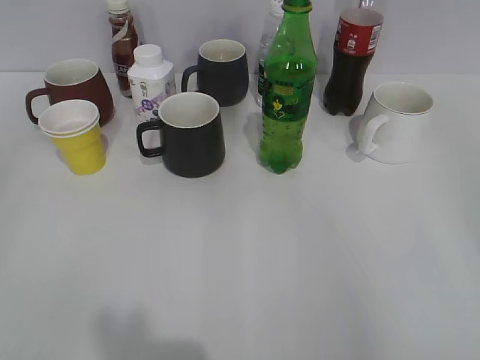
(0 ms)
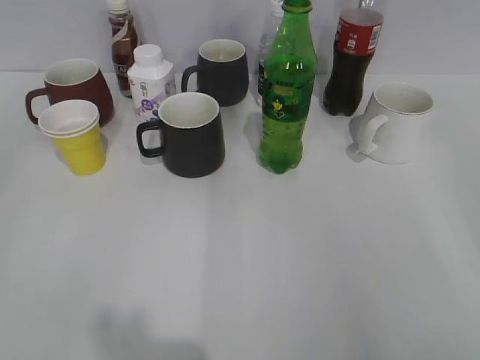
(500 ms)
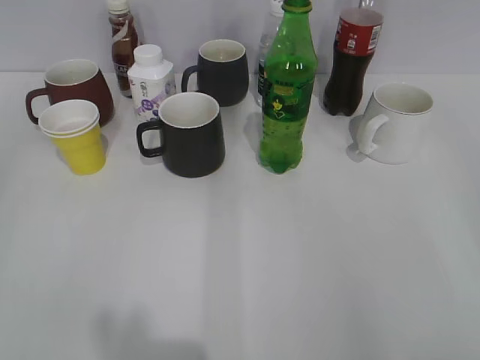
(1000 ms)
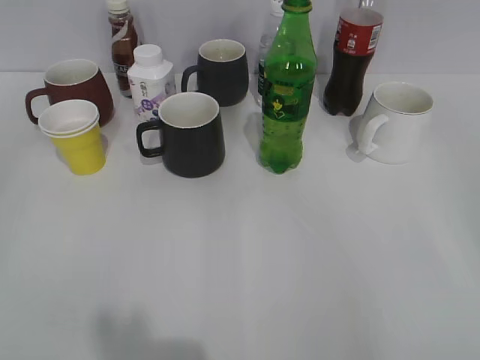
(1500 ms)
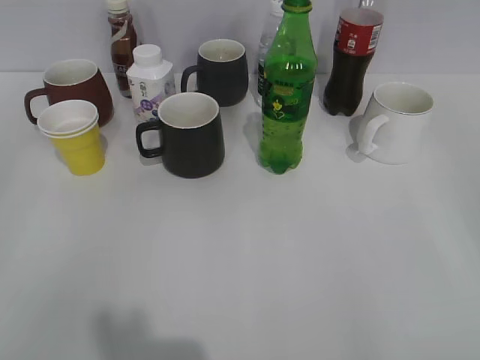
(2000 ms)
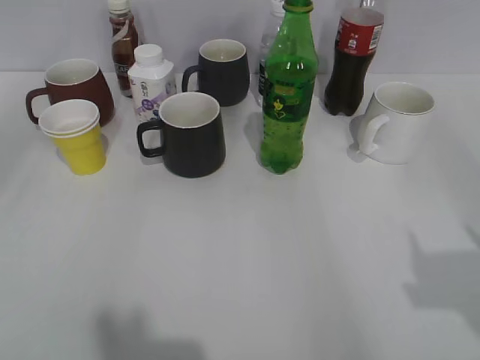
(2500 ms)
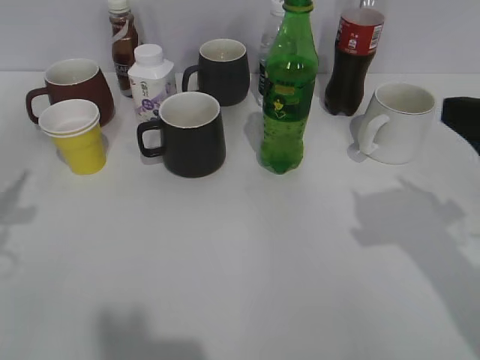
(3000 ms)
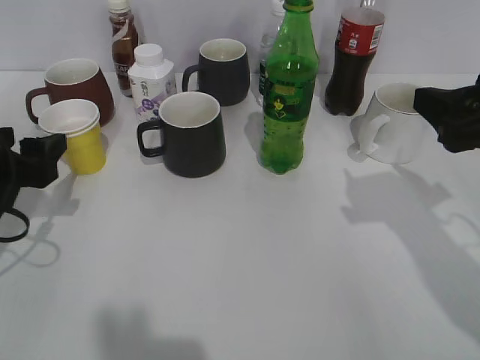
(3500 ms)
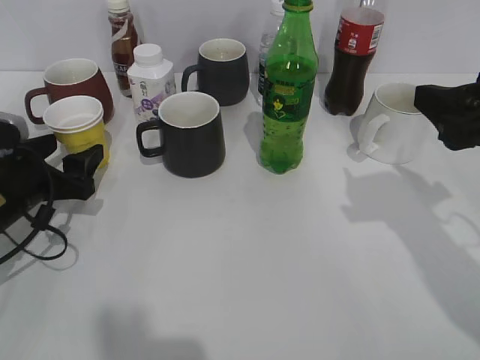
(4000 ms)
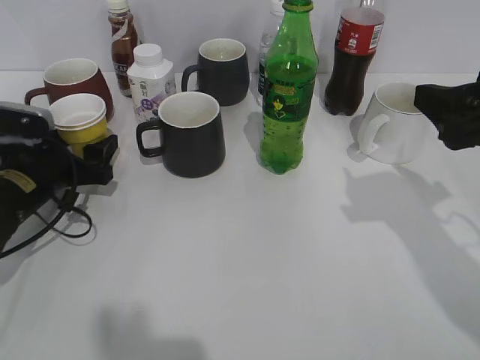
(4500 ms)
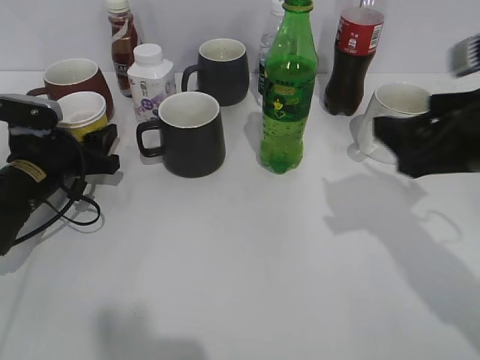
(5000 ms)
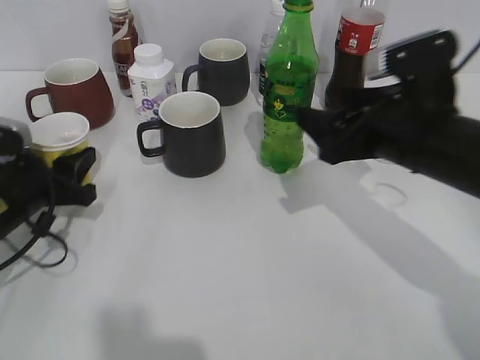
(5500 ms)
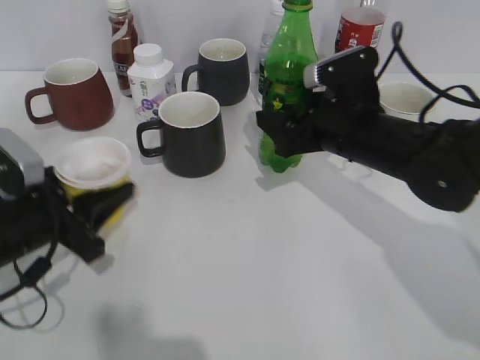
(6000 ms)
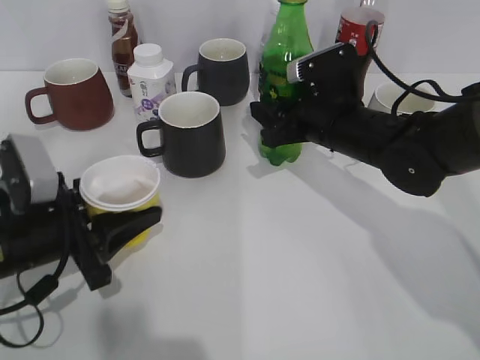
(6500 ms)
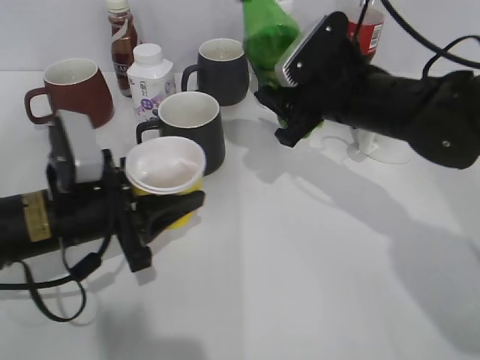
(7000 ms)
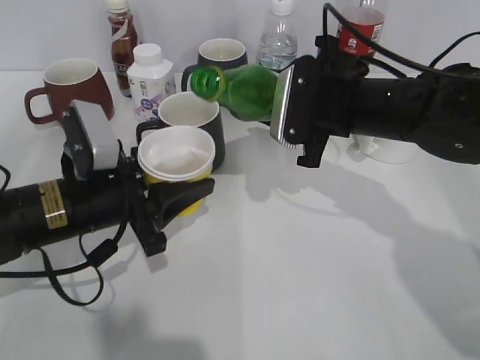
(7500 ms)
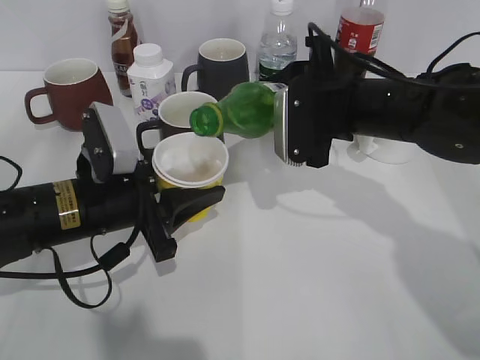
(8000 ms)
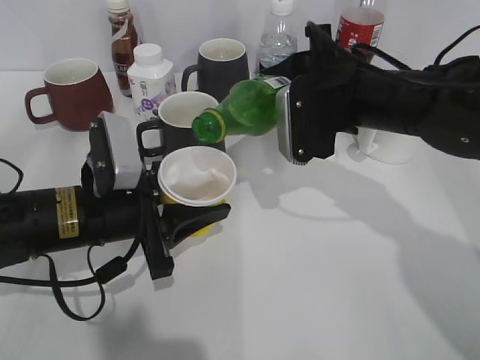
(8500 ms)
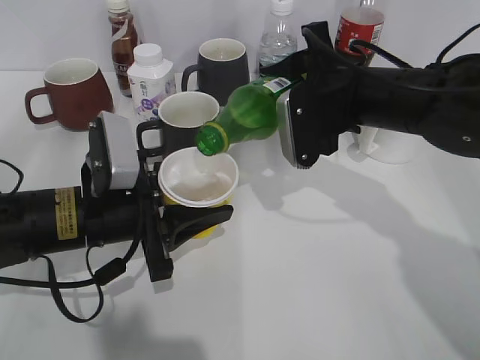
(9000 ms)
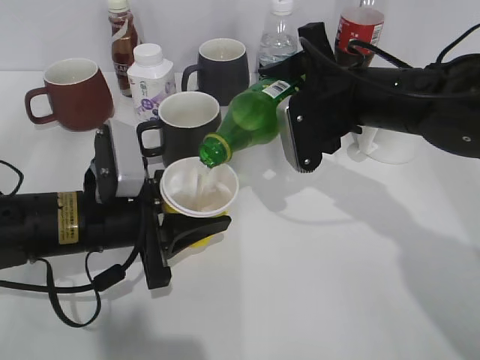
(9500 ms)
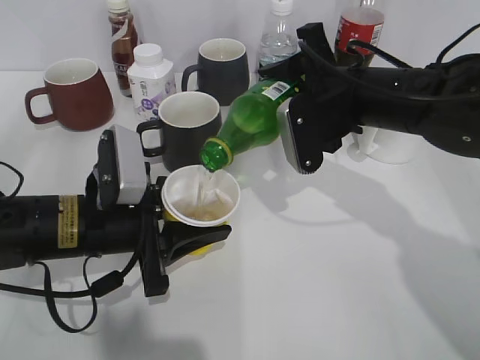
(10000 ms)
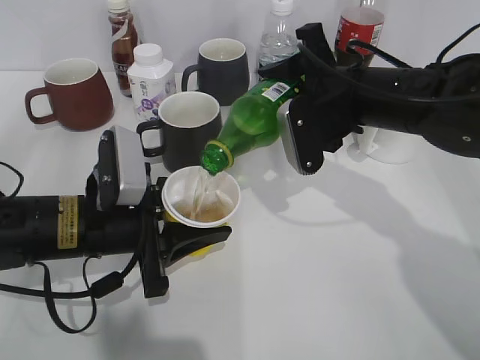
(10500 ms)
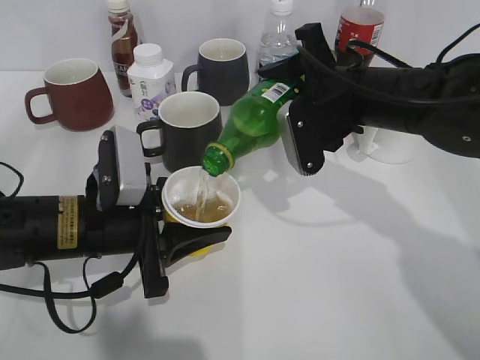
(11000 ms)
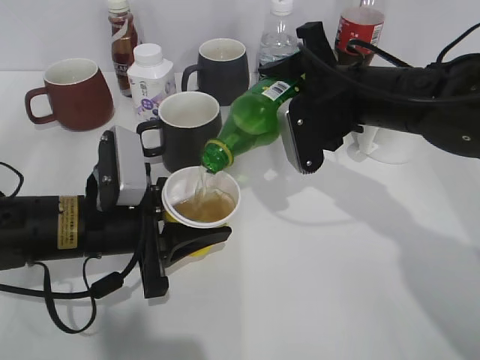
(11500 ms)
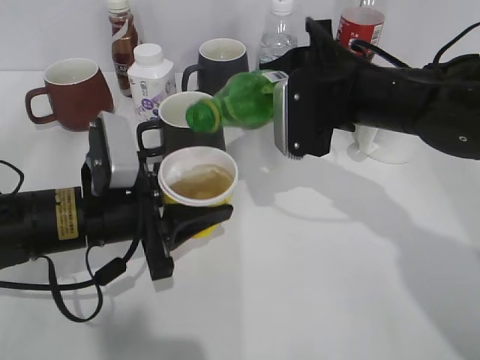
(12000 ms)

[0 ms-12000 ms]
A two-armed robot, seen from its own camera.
Step, 2000 ms to 4500 ms: Grasp the yellow paper cup with left gripper.
Step, 5000 ms to 6000 ms: Grasp the bottle with sprite with right gripper.
2000 ms to 4000 ms: The right gripper goes approximately 20 cm forward, while the left gripper goes roughly 30 cm forward and downward, and opens its fingers.
4000 ms to 6000 ms: The left gripper shifts by roughly 5 cm, and closes, while the right gripper goes roughly 20 cm forward, to the left and downward.
6000 ms to 8000 ms: The left gripper travels to the right by some 10 cm. The right gripper closes up.
8000 ms to 10000 ms: The grippers make only small movements.
10000 ms to 12000 ms: The grippers move only a little.

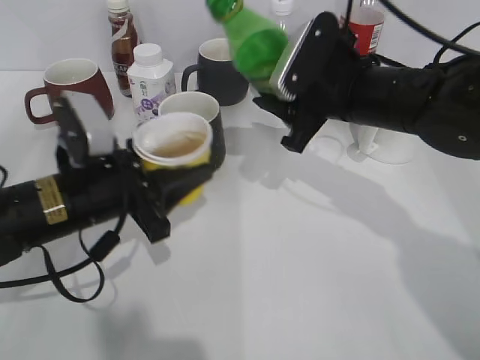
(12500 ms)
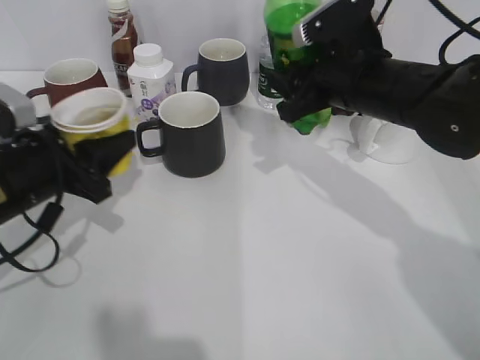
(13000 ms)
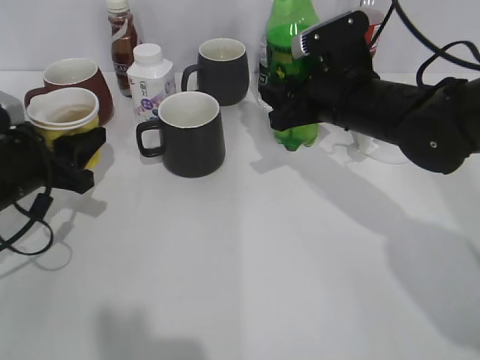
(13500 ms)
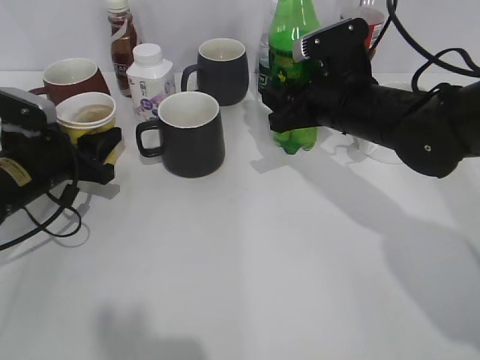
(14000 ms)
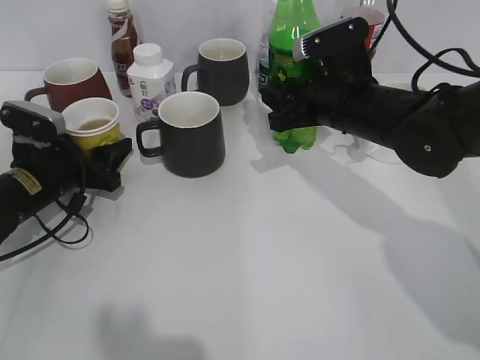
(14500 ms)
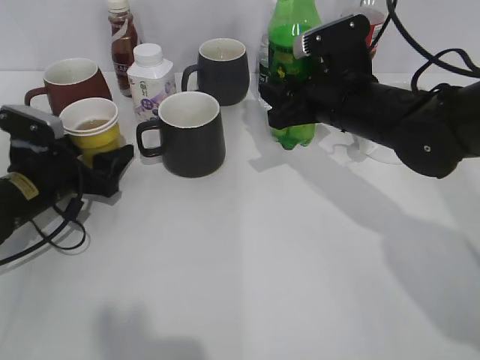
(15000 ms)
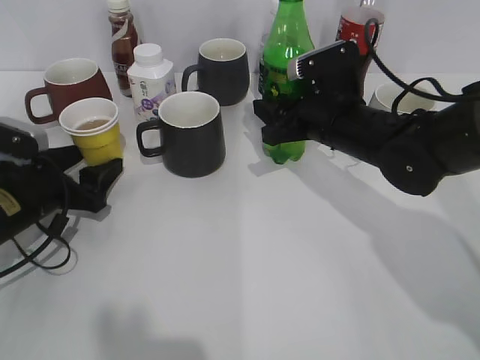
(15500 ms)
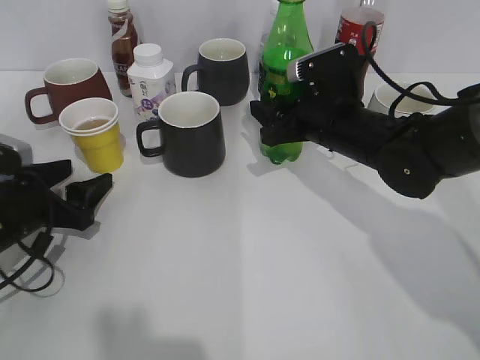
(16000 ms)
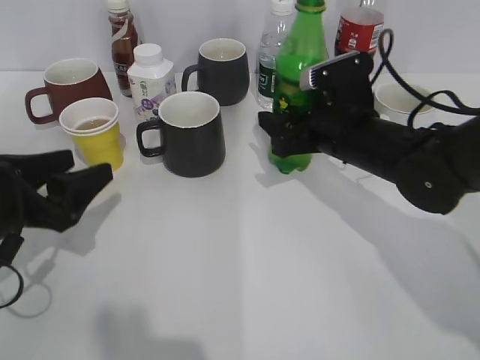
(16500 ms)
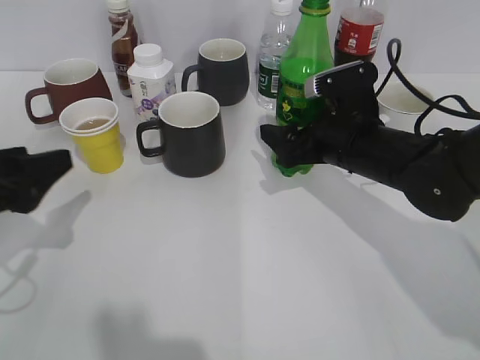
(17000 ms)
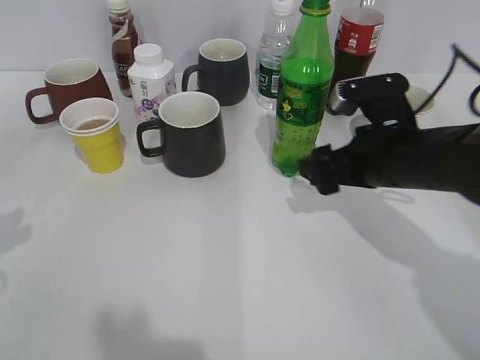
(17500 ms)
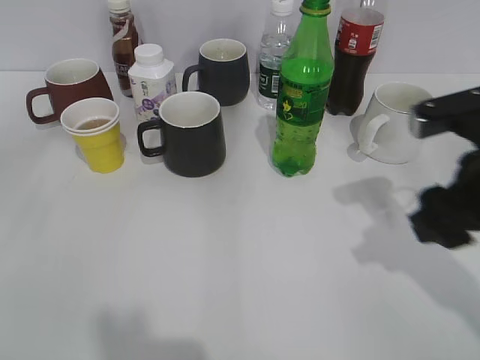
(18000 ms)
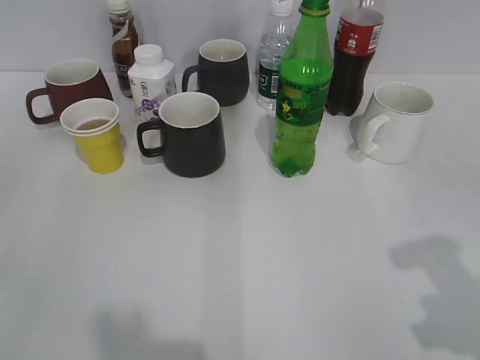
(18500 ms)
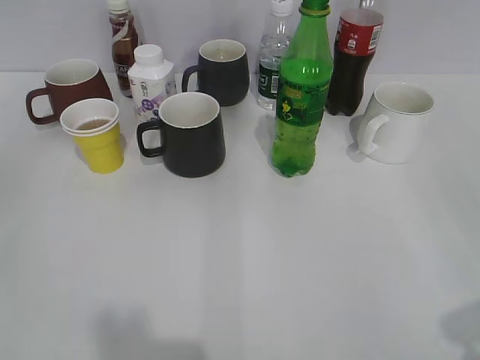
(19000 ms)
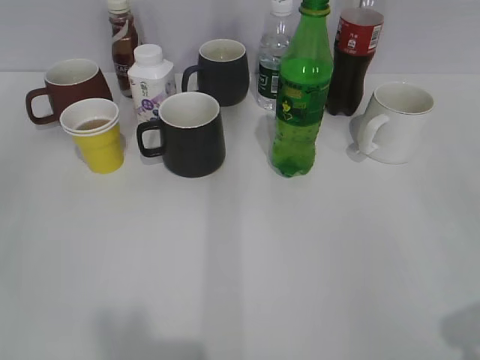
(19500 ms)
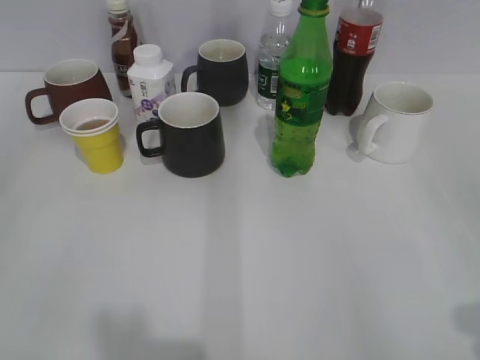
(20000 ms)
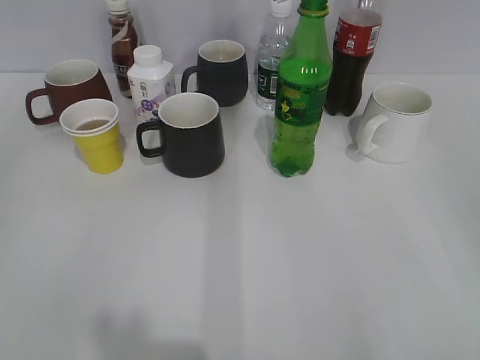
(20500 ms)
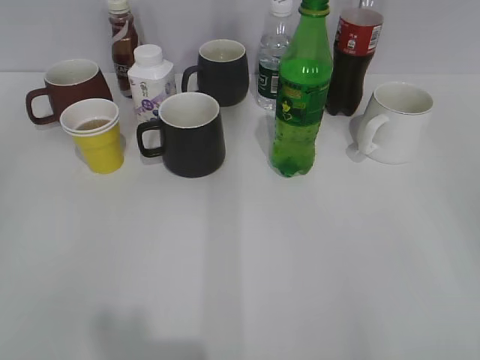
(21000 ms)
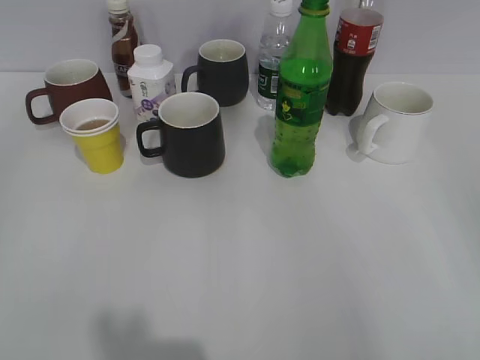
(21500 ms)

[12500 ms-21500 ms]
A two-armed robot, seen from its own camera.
Step, 12500 ms to 13000 ms: Place the yellow paper cup on the table with left gripper.
Step, 13500 ms to 17000 ms: Place the sprite bottle on the table with right gripper.
12500 ms to 14500 ms: The left gripper moves to the left, forward and downward, approximately 15 cm, and opens up.
14500 ms to 17000 ms: The right gripper opens up. The left gripper moves backward and upward, about 15 cm.
17000 ms to 19500 ms: The right gripper moves backward, to the right and upward, about 35 cm, and closes its fingers. Meanwhile the left gripper is displaced backward and upward by approximately 20 cm.

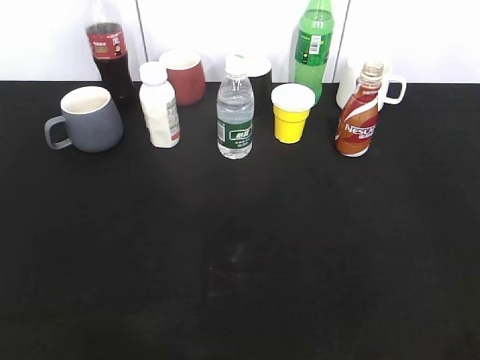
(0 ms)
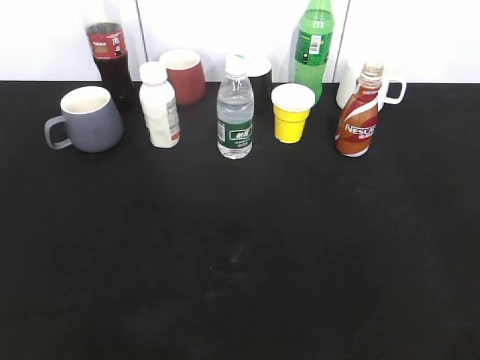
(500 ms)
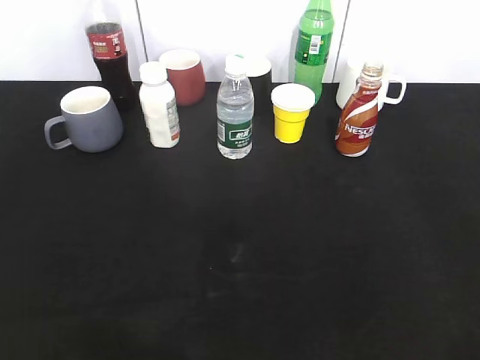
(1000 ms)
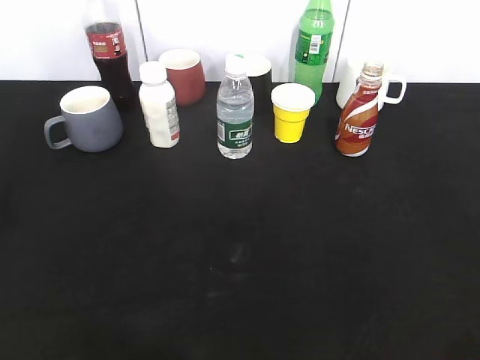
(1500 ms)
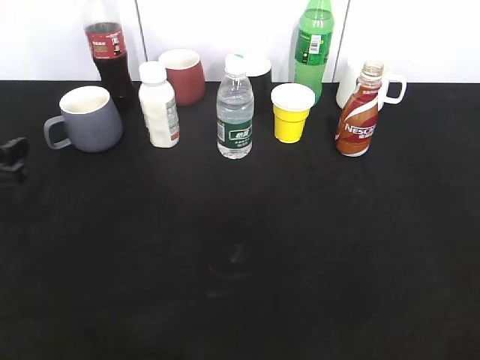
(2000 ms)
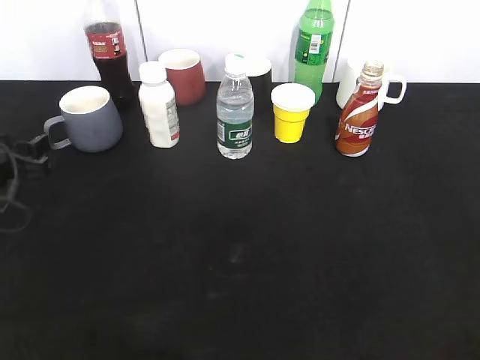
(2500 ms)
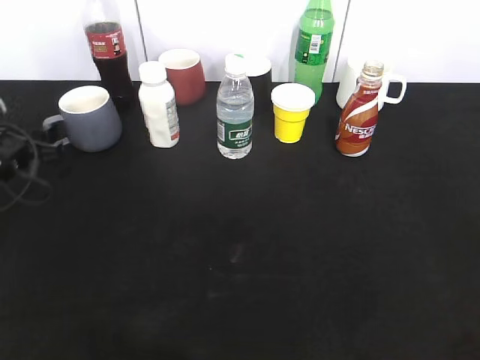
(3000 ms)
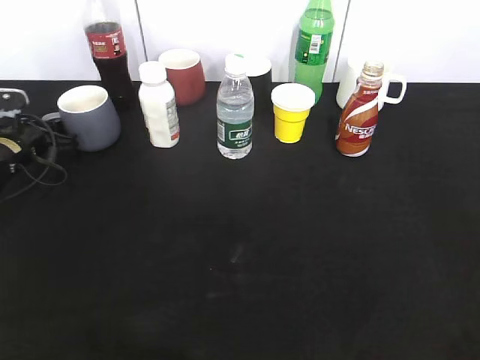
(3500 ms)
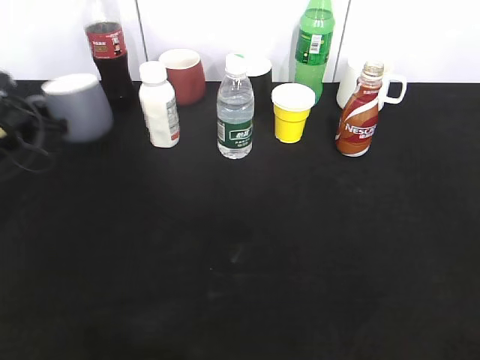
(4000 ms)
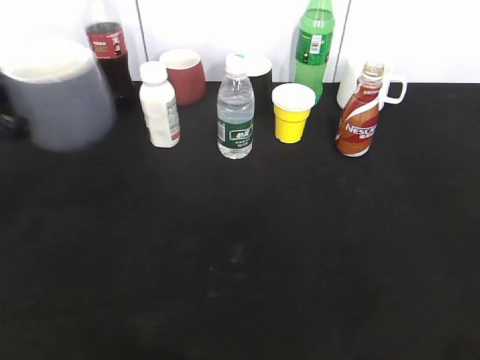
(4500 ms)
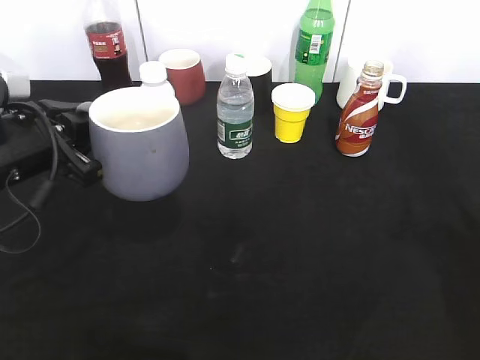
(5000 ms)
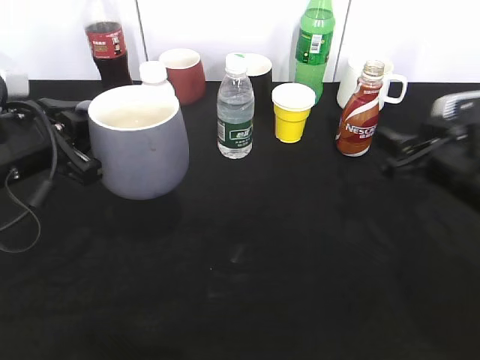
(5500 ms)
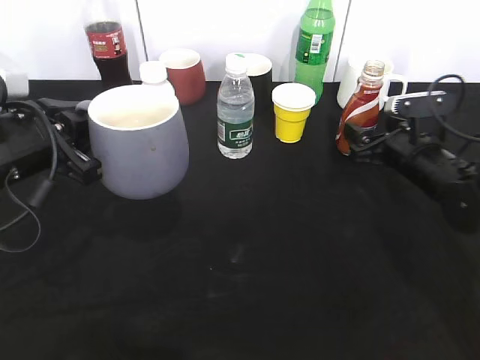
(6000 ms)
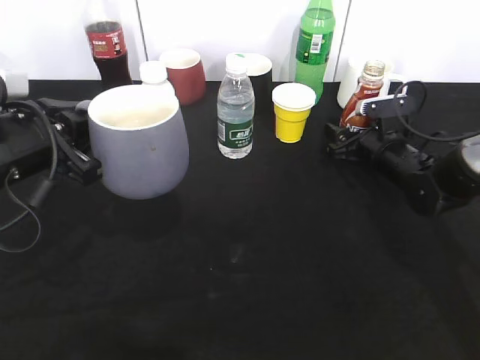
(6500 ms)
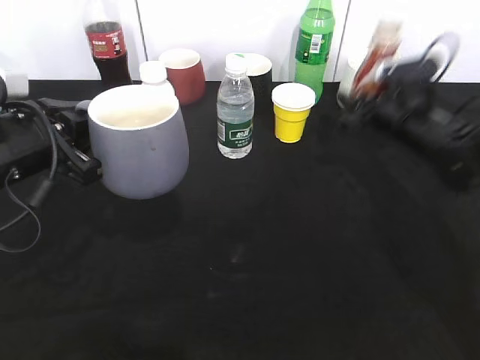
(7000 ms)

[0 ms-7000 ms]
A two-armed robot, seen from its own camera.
Step, 2000 ms to 3500 ms: Grasp the grey cup with left gripper.
Step, 4000 ms to 5000 ms: Lift the grey cup with left gripper.
Step, 5500 ms to 6500 ms: Grasp the bottle with coffee with right gripper.
2000 ms to 3500 ms: The left gripper is displaced forward and downward by some 15 cm, and closes up.
3500 ms to 5000 ms: The left gripper shifts some 25 cm backward, upward and to the right, and closes, while the right gripper shifts approximately 15 cm forward.
5000 ms to 7000 ms: The right gripper moves forward and downward, about 30 cm, and closes up.
